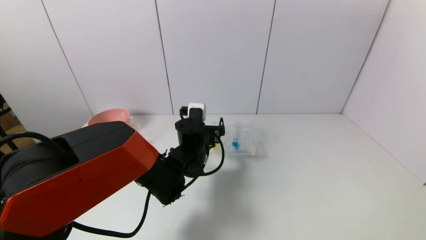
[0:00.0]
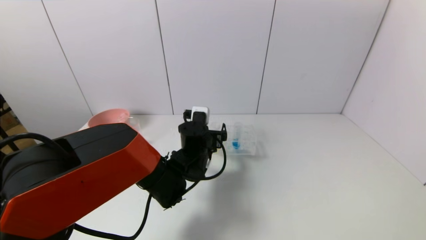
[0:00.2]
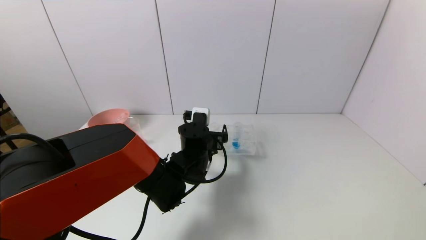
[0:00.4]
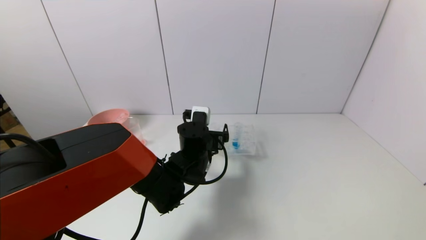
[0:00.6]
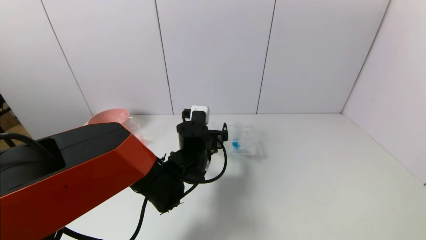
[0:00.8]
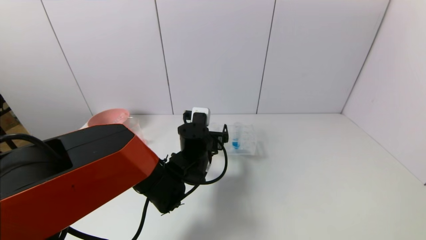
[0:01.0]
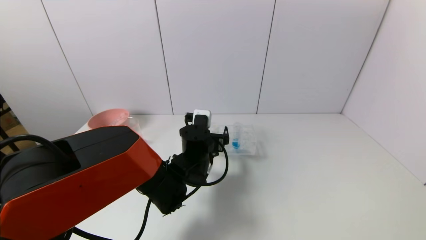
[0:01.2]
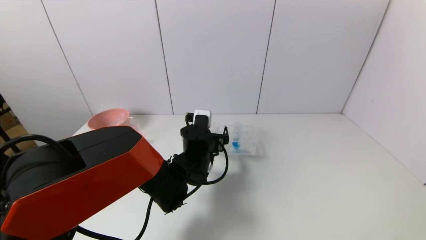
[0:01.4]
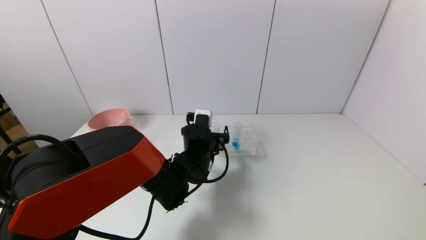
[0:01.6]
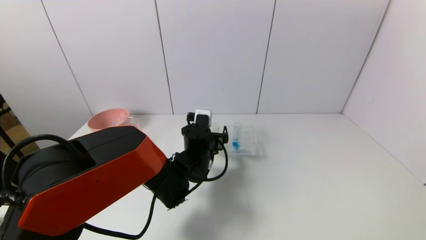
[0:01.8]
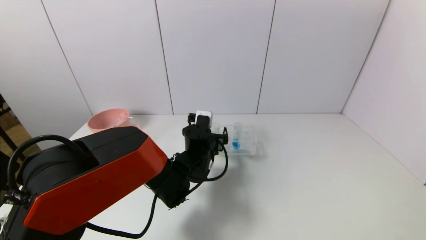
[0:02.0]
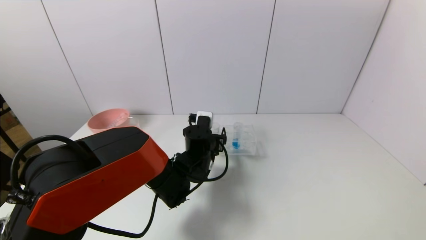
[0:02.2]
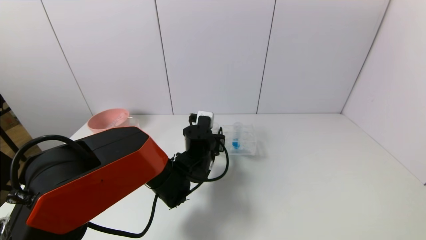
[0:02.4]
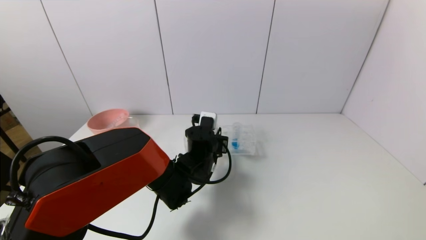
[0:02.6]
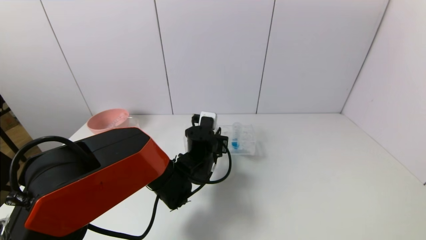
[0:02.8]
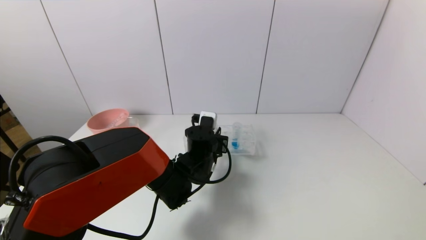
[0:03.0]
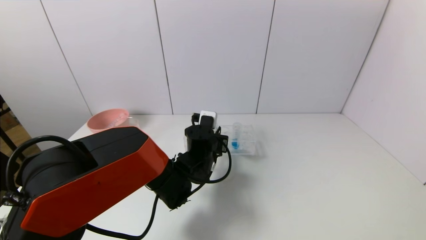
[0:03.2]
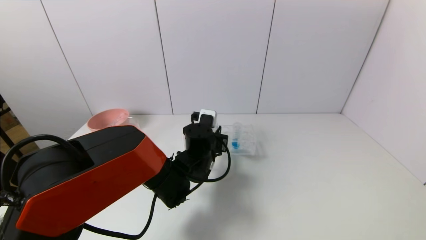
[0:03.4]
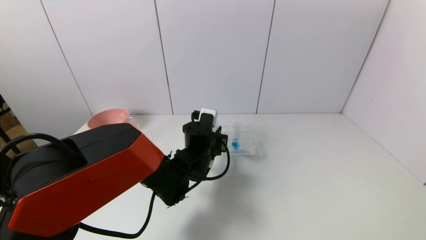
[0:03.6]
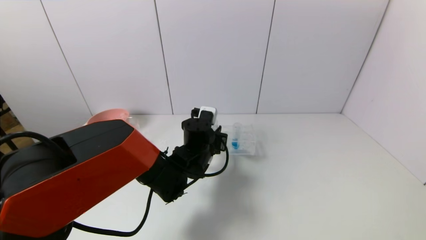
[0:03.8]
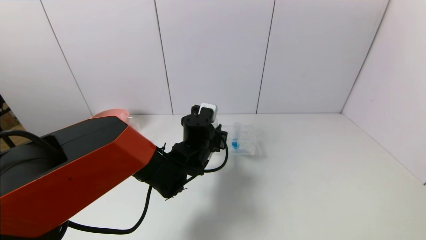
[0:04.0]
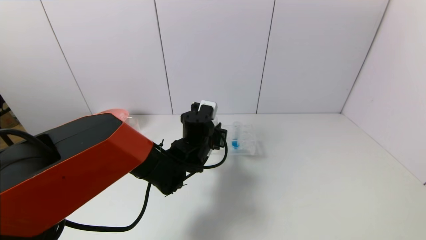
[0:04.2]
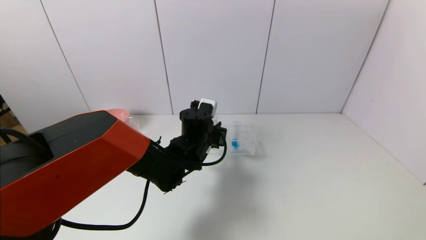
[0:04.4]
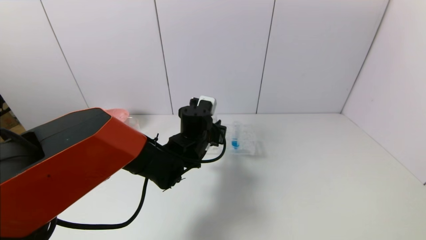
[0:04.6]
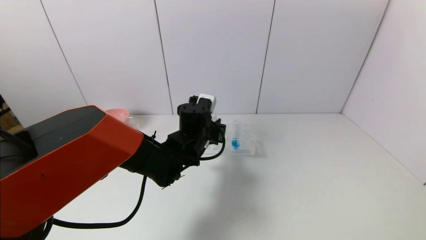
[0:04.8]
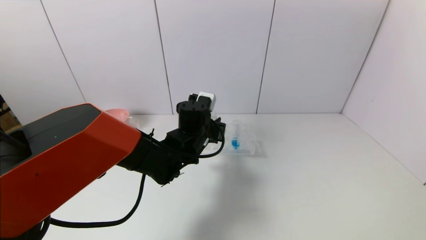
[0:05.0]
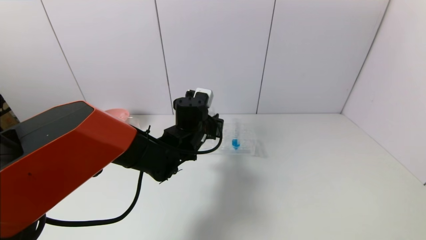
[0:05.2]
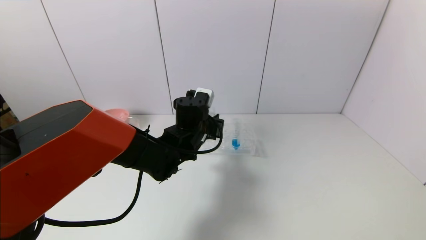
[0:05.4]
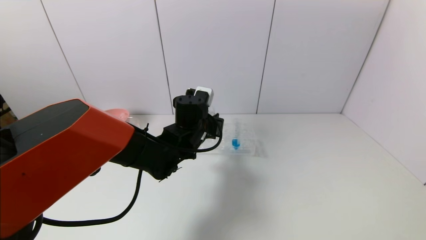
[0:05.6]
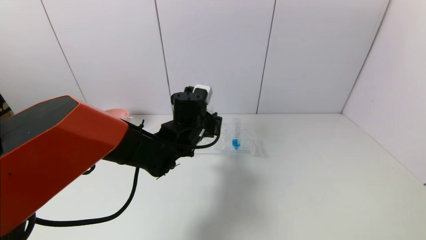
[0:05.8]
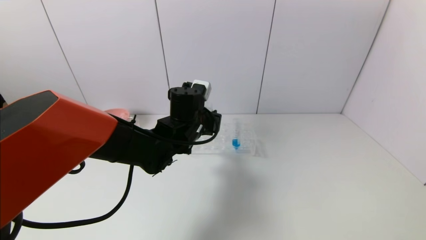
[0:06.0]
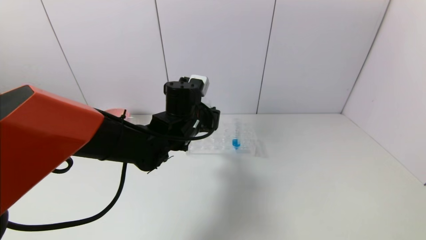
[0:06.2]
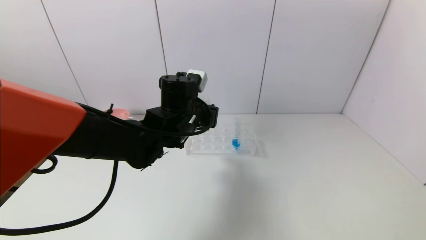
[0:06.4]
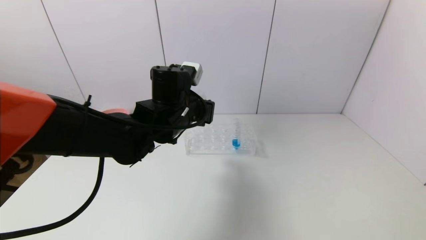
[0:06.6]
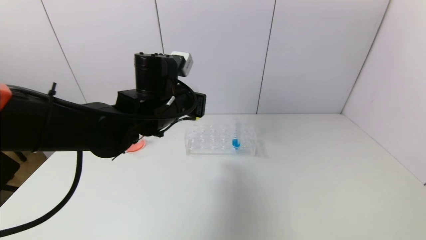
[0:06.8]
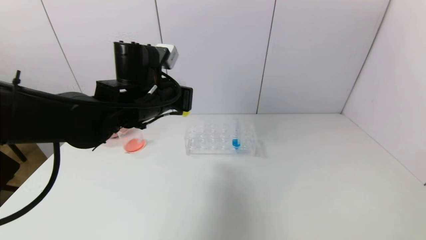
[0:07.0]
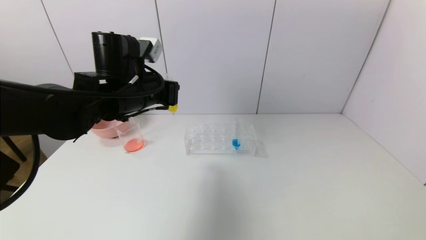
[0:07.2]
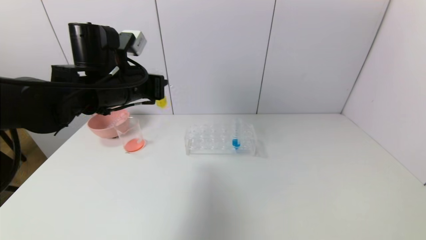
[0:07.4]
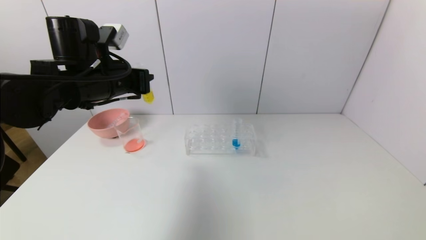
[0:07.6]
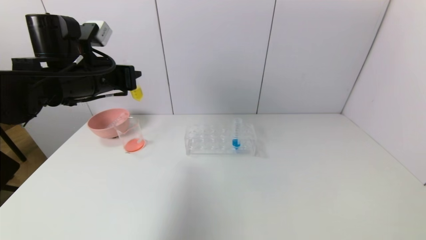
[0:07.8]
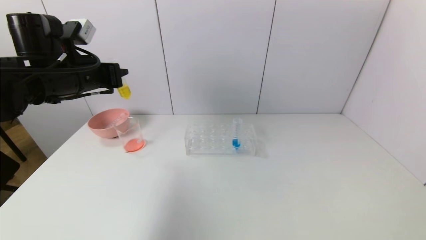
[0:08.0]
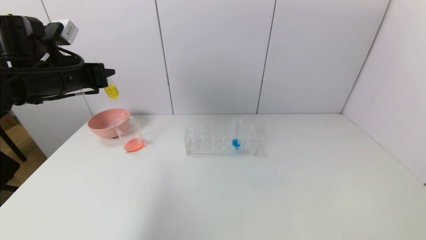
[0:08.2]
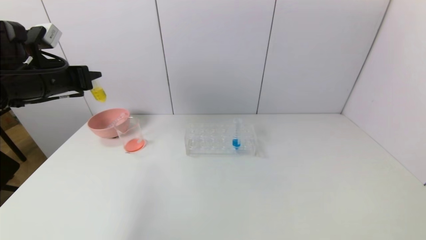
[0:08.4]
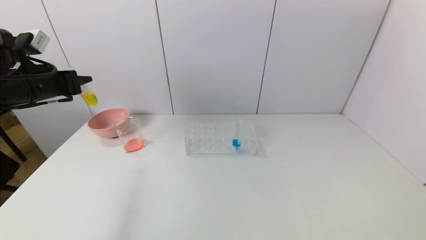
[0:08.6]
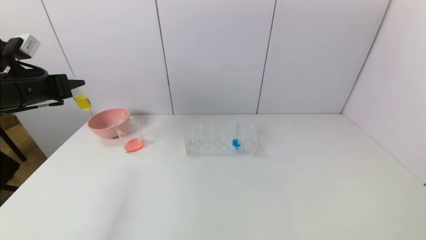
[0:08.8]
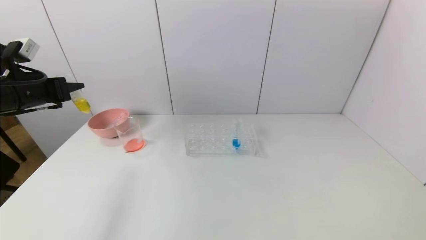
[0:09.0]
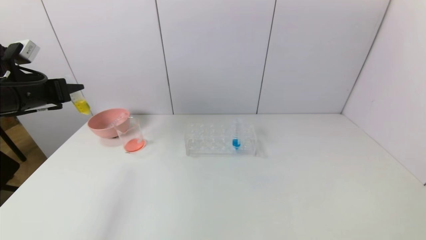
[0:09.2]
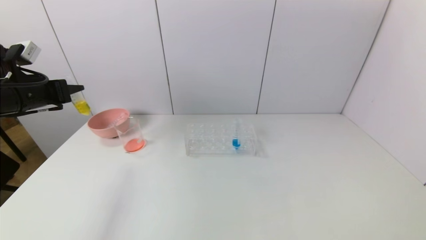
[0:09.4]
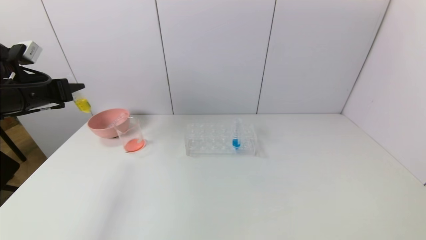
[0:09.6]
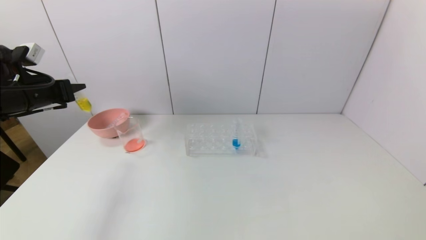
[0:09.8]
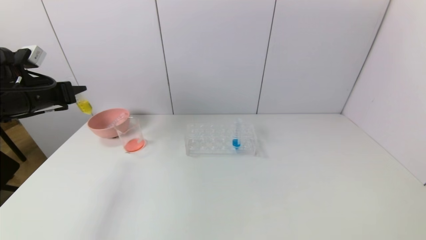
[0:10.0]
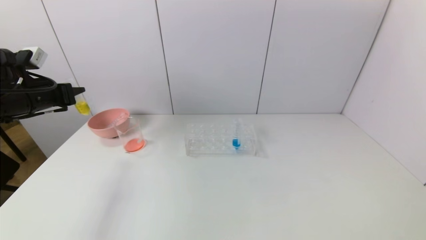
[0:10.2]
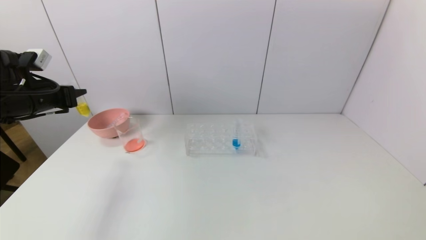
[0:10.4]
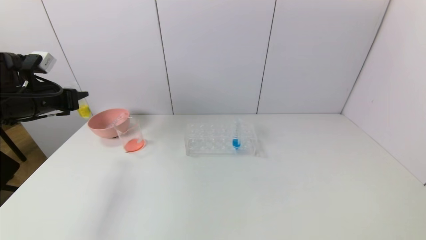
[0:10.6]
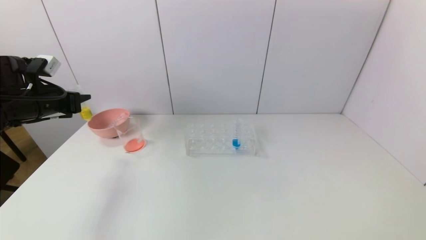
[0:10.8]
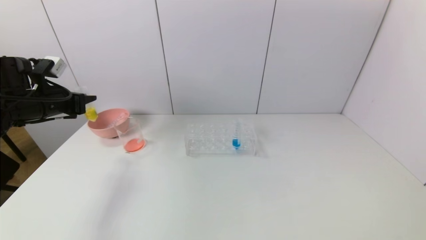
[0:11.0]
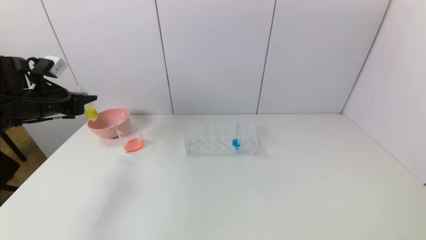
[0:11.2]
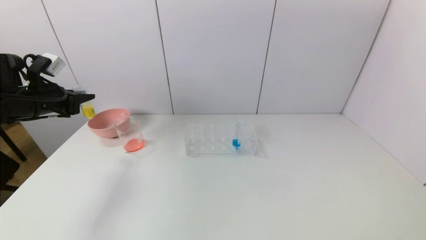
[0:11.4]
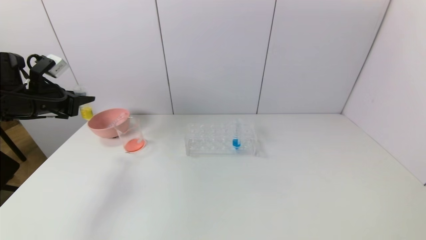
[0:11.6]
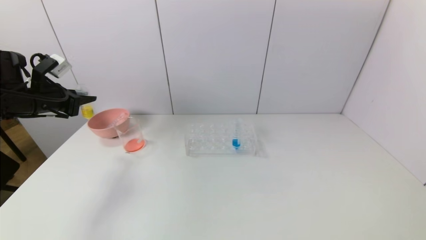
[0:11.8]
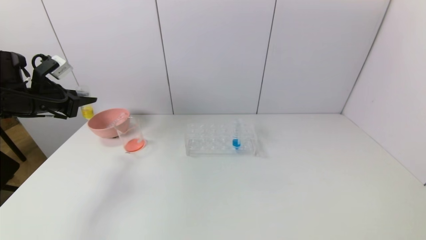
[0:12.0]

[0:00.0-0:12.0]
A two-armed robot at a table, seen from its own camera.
Task of the whole recording: pick up the test tube with yellow pigment and the test tube with red pigment by grippers and pour them into the beaker.
Step, 0:00.0 to 0:02.8: Grasp the yellow reagent with the left gripper.
0:00.0 to 0:01.6: The grippers stay close to where they were, moving slightly.
0:01.6 to 0:03.0: The left gripper closes up.
0:03.0 to 0:04.4: The grippers stay close to where they were, moving slightly.
0:04.4 to 0:06.0: The left gripper moves upward, about 5 cm.
0:06.0 to 0:07.6: The left gripper travels to the left and upward by roughly 20 cm.
0:07.6 to 0:09.0: The left gripper goes roughly 15 cm to the left.
0:09.0 to 0:10.4: There are only small adjustments of the grippers.

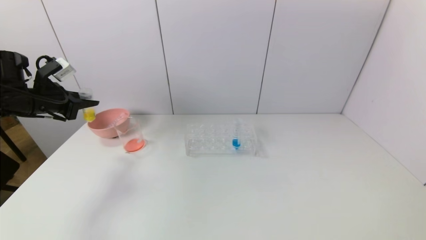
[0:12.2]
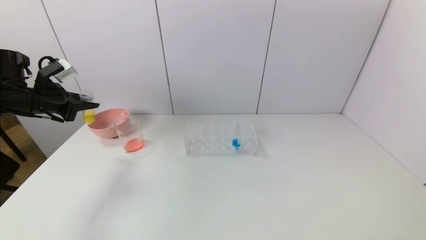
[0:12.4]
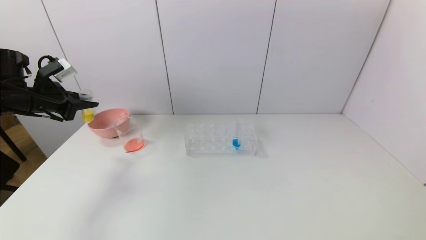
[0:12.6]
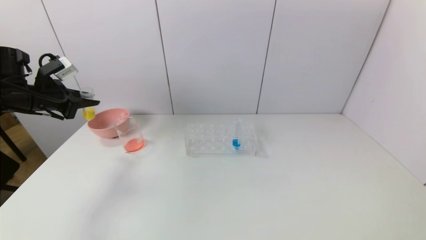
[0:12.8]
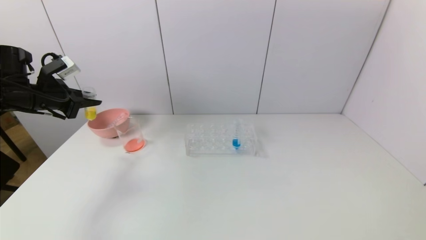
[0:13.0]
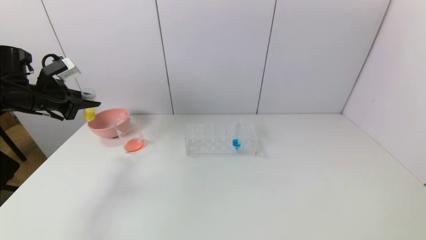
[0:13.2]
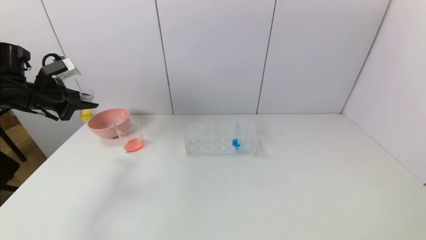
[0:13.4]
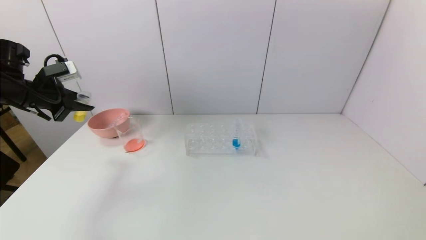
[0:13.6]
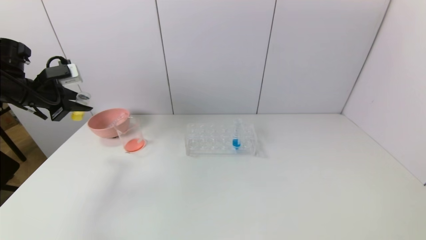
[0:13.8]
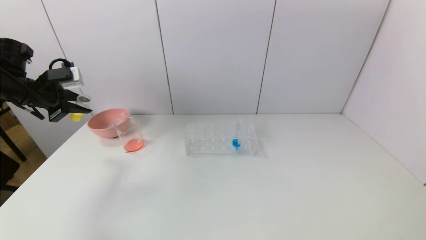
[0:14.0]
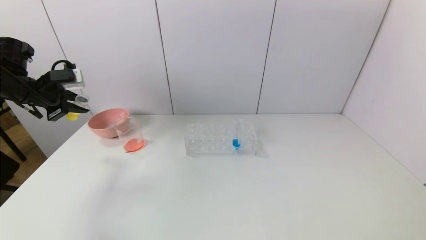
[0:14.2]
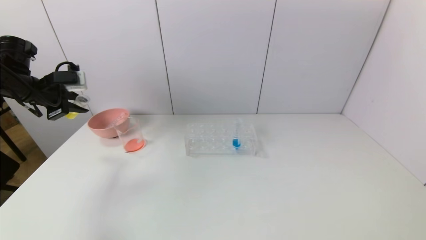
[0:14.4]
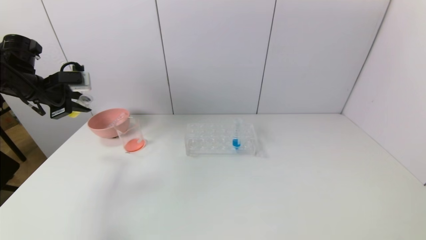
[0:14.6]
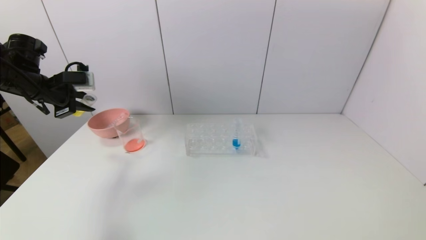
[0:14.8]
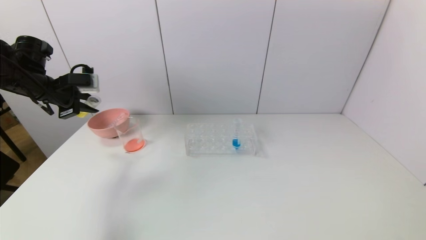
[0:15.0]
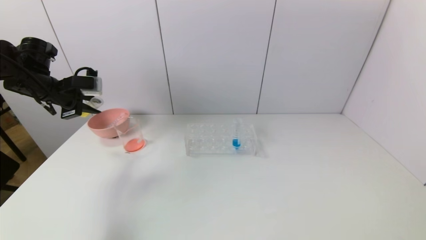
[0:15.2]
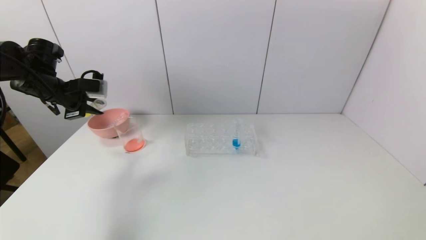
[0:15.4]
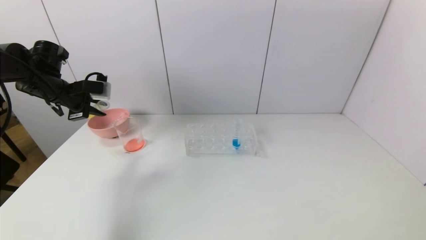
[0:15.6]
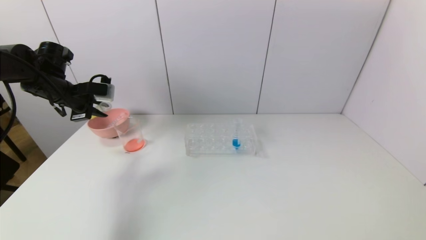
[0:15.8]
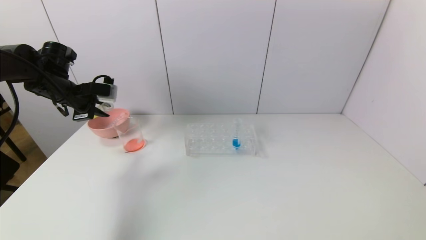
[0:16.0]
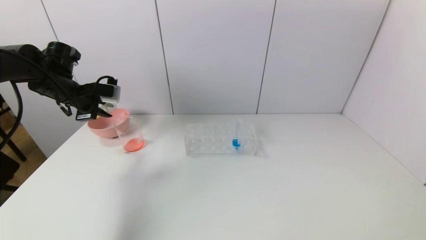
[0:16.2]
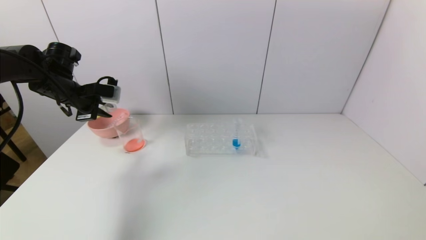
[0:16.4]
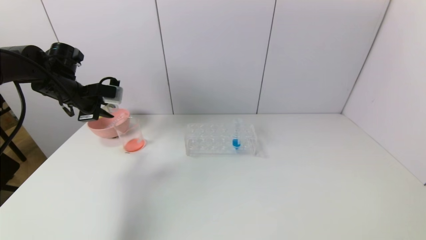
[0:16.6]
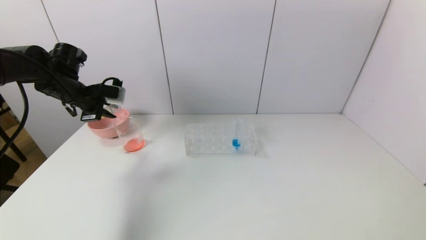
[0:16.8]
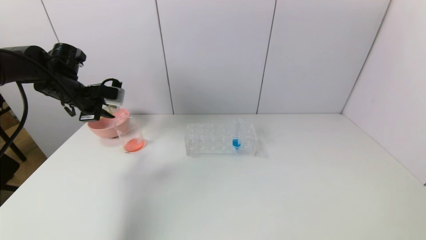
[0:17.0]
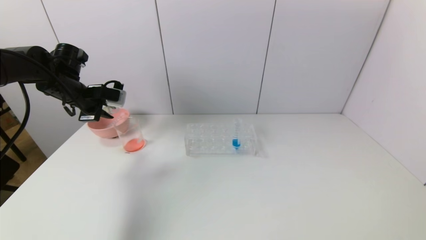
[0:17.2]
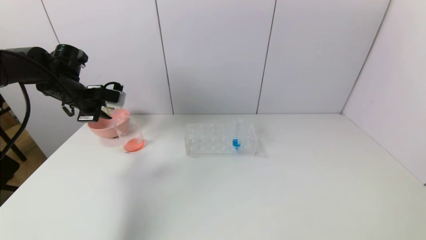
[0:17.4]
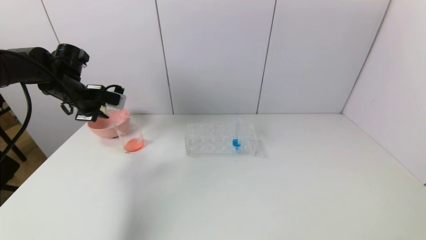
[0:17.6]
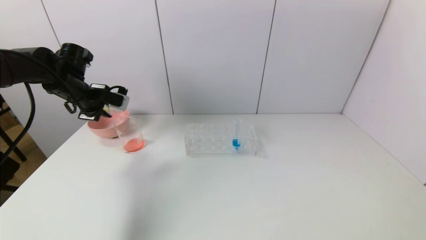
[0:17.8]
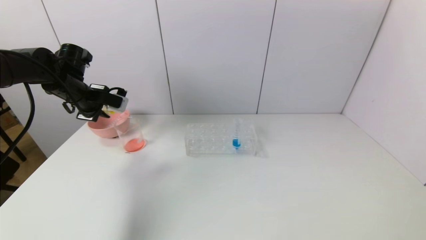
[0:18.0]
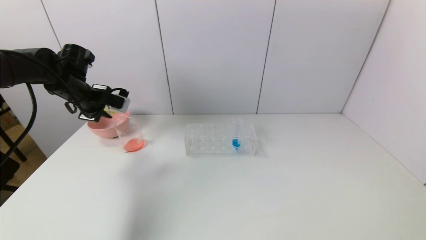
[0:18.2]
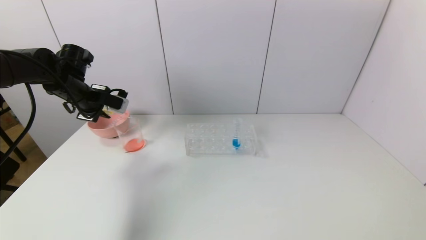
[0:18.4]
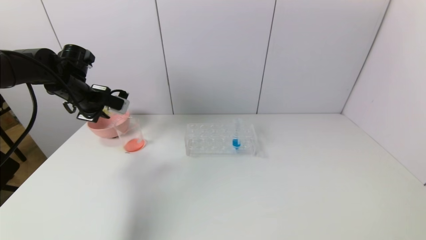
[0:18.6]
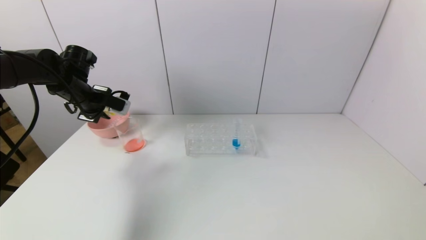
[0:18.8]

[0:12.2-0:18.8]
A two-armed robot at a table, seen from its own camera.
Task of the whole recording: pick up the test tube with yellow pigment and the test tube with red pigment by grippers and pour them into the beaker.
0:15.4 to 0:17.2: The grippers make only small movements.
0:17.2 to 0:18.8: The grippers move only a little.
